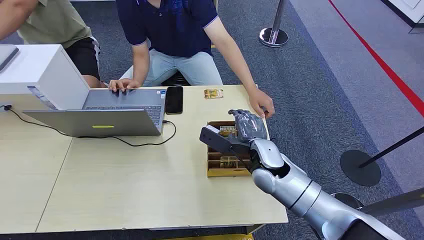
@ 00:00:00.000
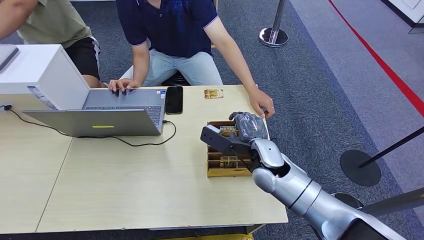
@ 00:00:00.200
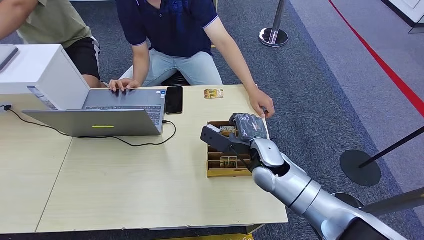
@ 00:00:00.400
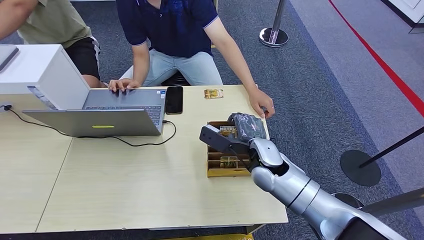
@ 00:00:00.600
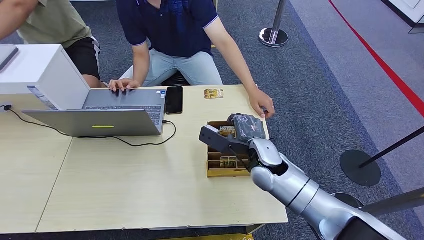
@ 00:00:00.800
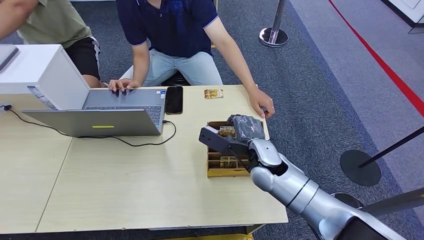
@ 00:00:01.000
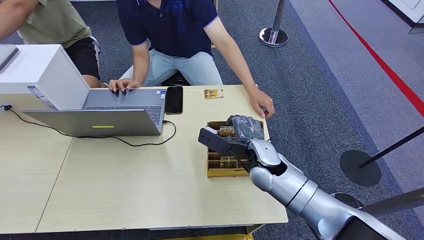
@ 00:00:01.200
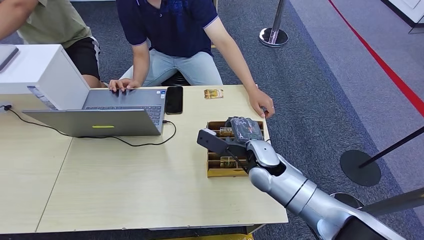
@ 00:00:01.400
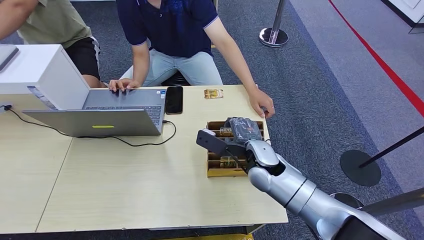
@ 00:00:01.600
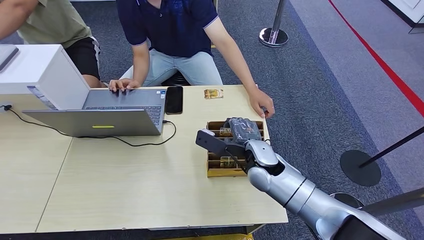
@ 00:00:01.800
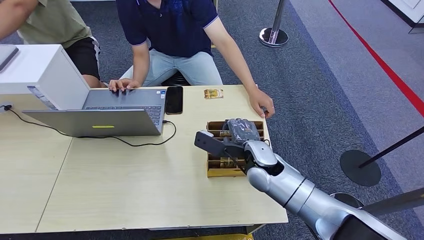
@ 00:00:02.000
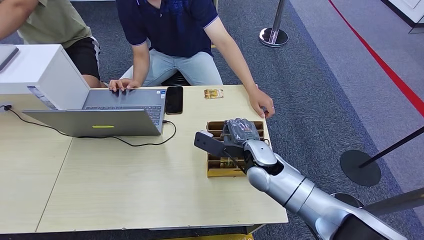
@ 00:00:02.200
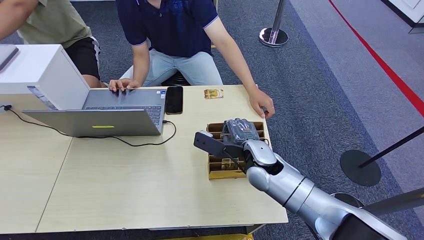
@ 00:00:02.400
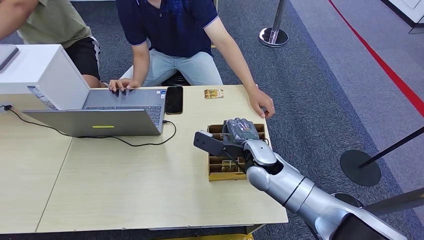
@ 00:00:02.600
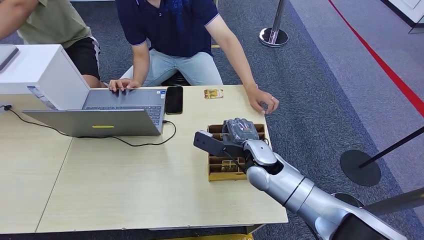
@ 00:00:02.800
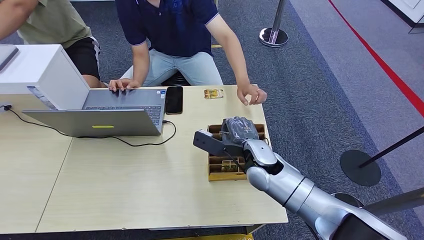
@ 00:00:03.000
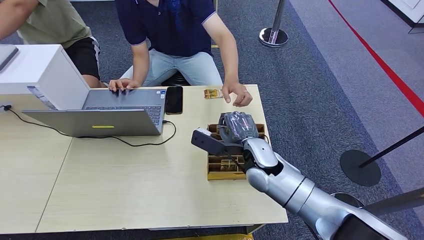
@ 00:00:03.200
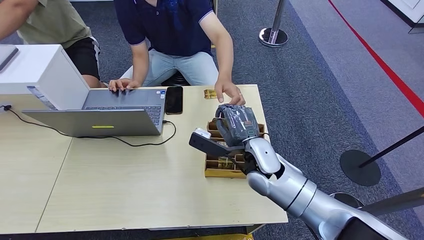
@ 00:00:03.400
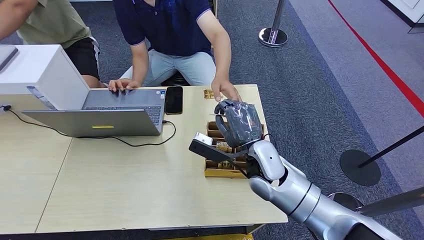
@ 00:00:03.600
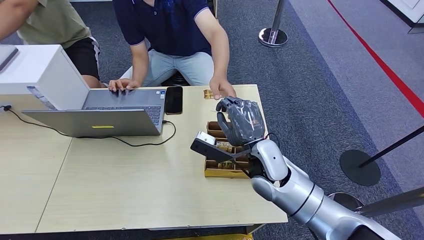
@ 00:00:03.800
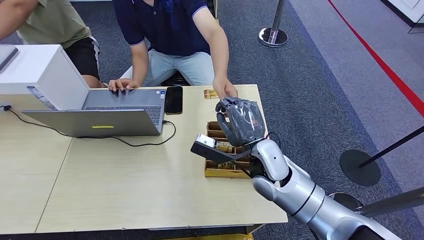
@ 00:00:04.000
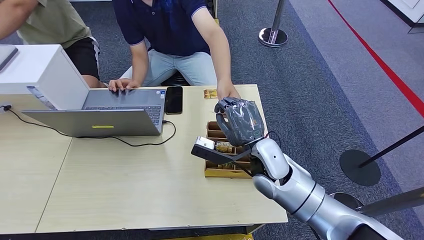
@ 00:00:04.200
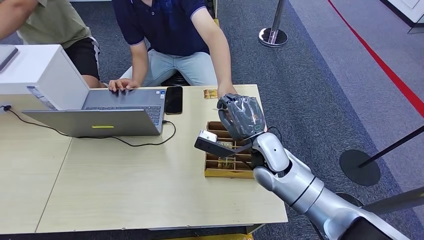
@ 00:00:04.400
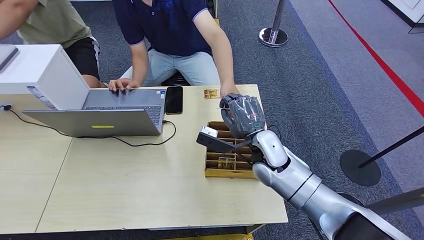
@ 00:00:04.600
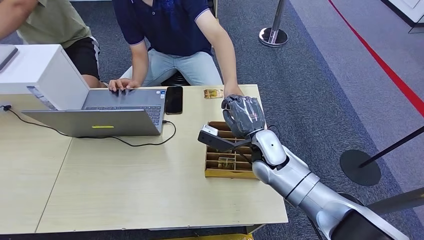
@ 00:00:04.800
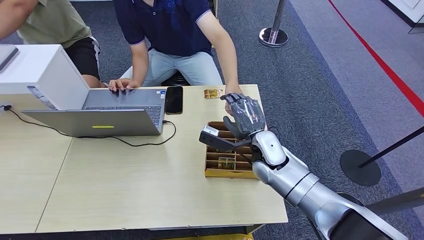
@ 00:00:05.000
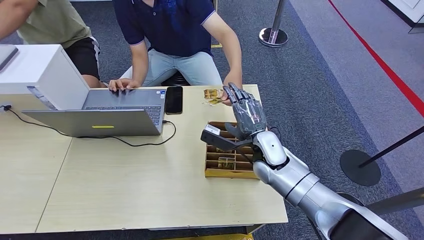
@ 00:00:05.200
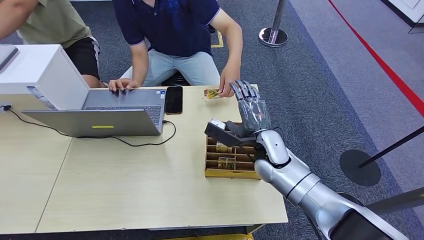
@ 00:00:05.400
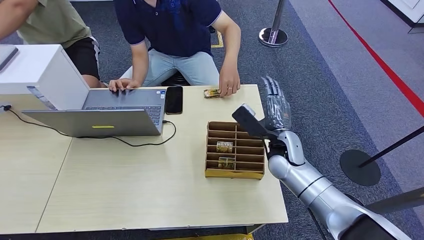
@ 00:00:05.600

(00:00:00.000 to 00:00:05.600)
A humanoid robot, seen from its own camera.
Step, 00:00:00.000 - 00:00:03.000: Pick up the key card from the card box.
Step, 00:00:03.200 - 00:00:05.600: Hand the key card to the target.
00:00:01.400 - 00:00:02.800: Both hands stay put.
00:00:04.200 - 00:00:05.600: The right hand moves to the right and forward, about 10 cm.
